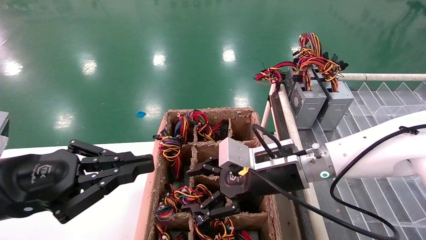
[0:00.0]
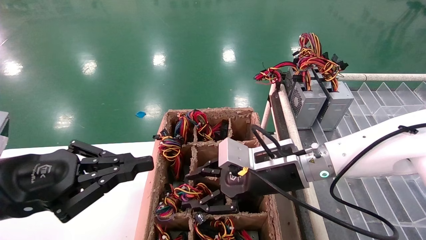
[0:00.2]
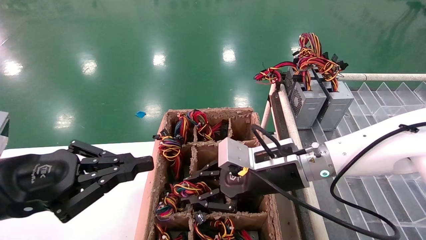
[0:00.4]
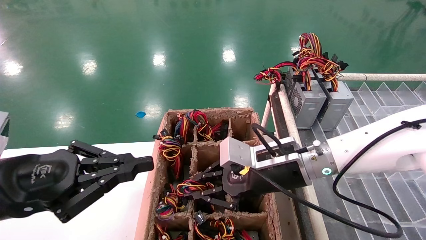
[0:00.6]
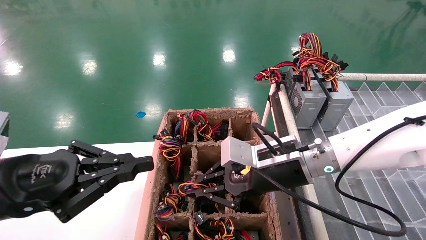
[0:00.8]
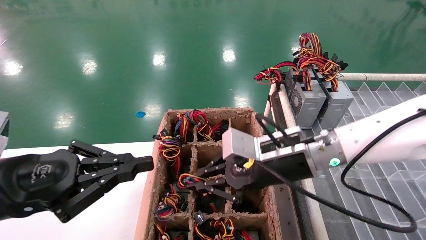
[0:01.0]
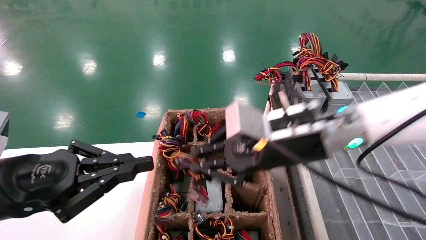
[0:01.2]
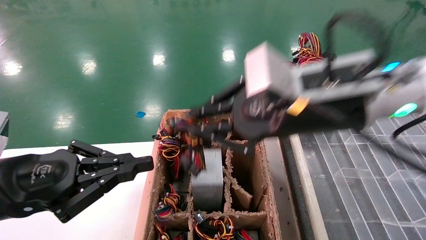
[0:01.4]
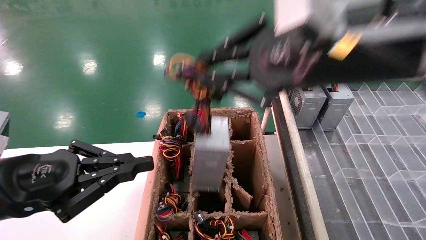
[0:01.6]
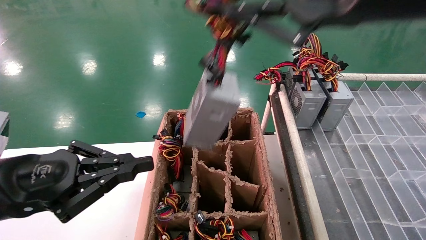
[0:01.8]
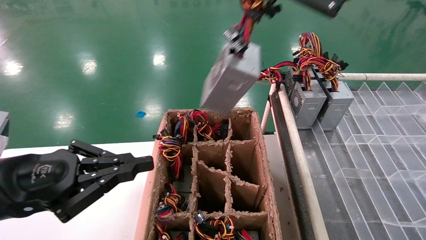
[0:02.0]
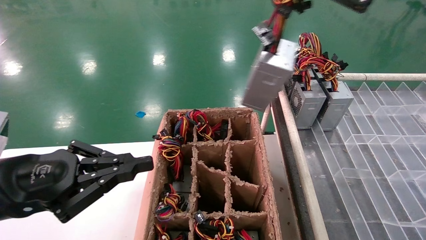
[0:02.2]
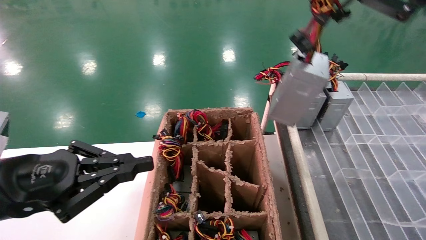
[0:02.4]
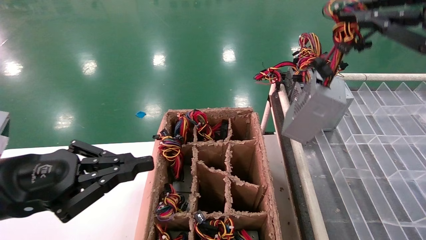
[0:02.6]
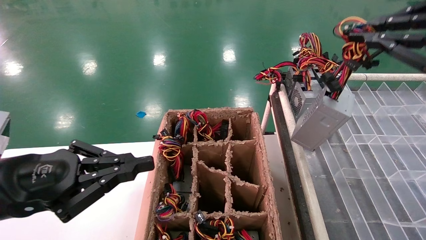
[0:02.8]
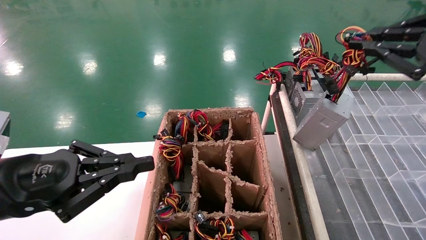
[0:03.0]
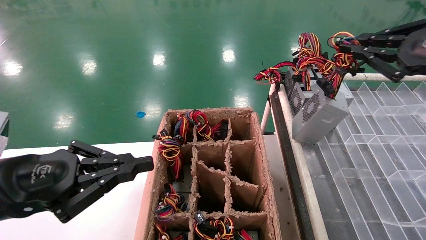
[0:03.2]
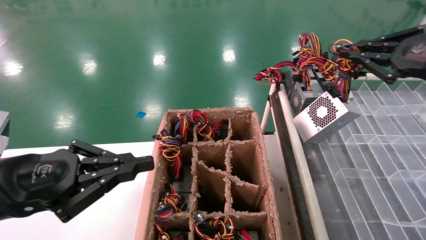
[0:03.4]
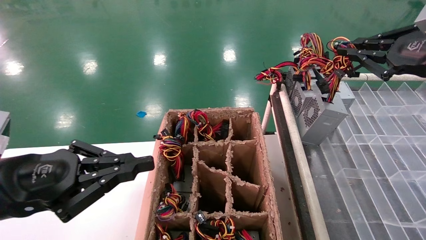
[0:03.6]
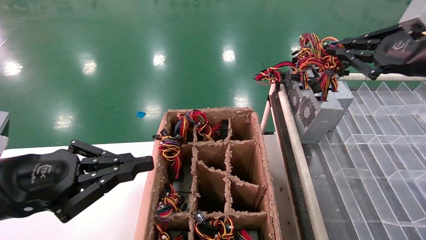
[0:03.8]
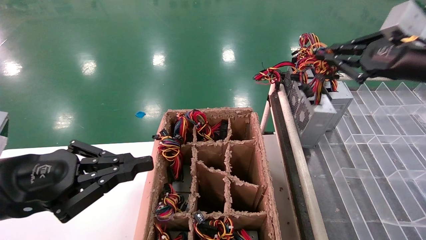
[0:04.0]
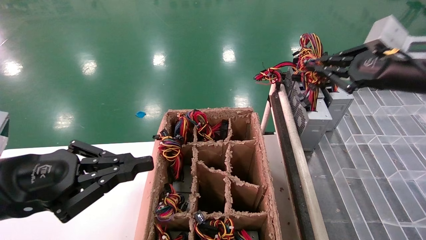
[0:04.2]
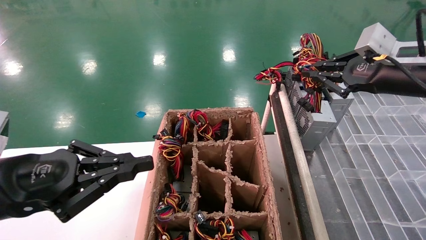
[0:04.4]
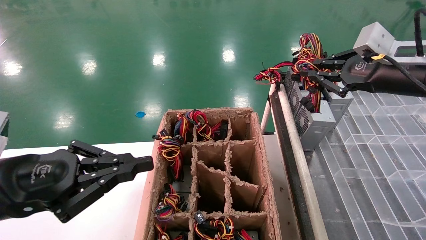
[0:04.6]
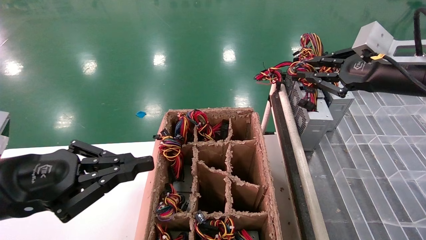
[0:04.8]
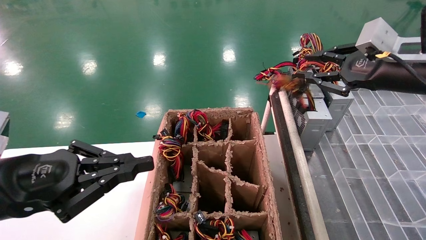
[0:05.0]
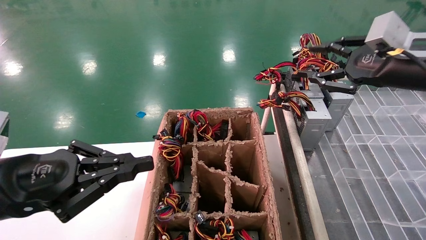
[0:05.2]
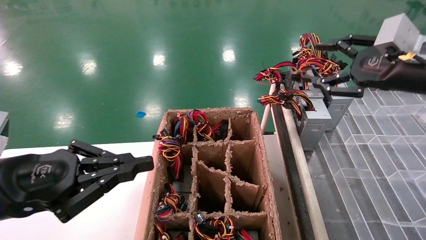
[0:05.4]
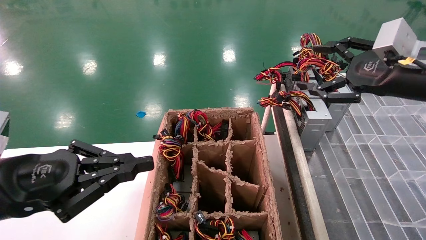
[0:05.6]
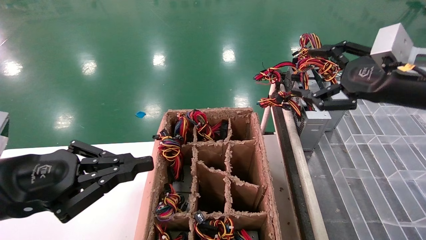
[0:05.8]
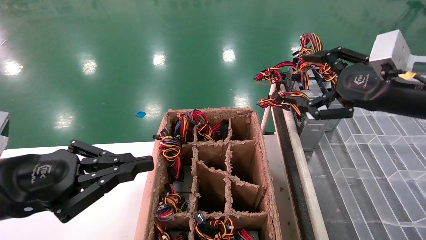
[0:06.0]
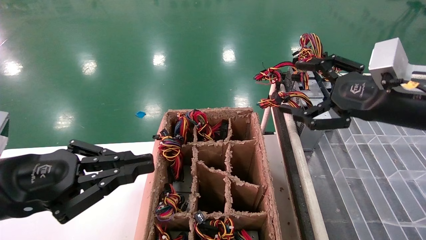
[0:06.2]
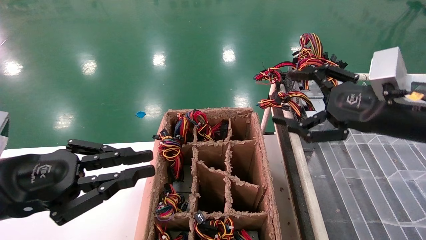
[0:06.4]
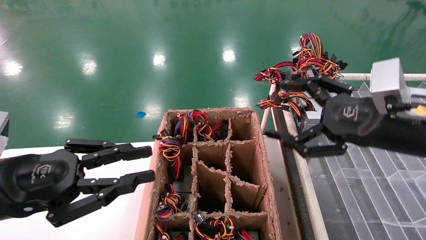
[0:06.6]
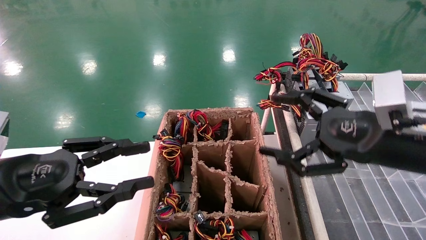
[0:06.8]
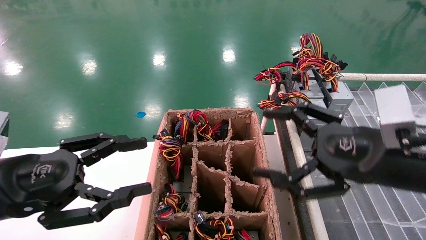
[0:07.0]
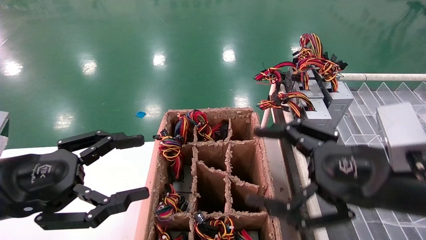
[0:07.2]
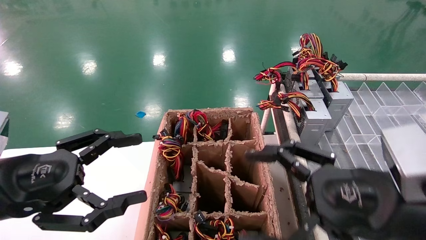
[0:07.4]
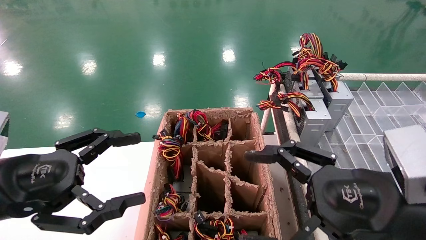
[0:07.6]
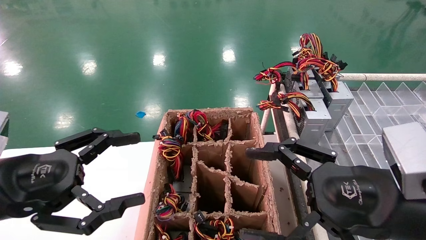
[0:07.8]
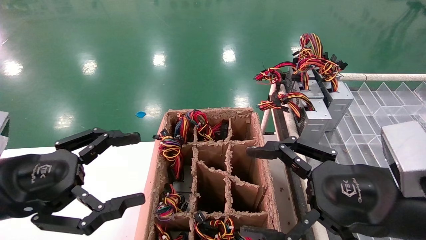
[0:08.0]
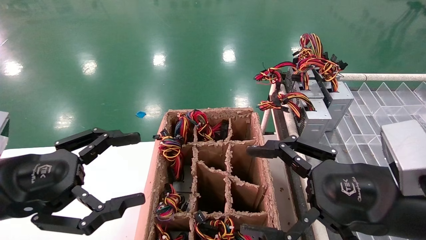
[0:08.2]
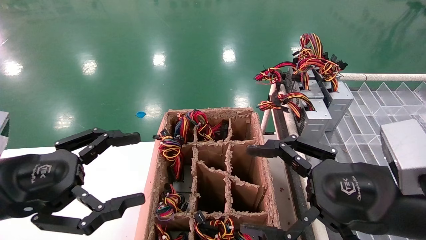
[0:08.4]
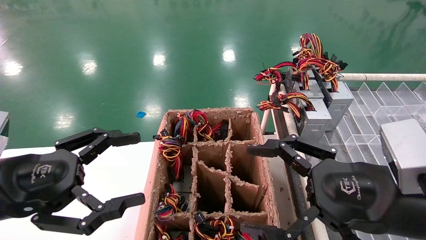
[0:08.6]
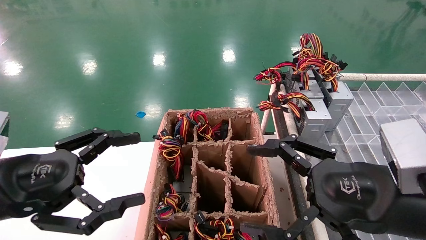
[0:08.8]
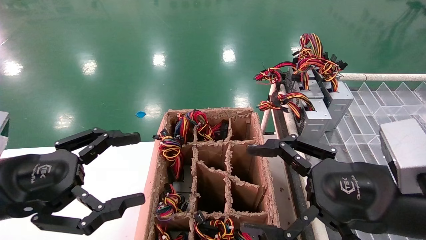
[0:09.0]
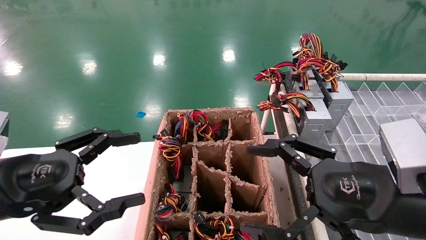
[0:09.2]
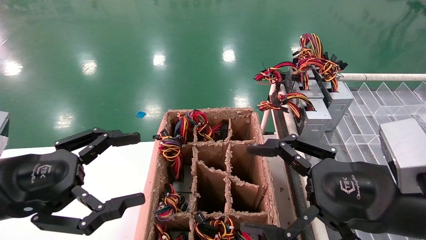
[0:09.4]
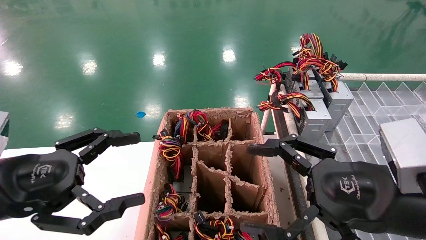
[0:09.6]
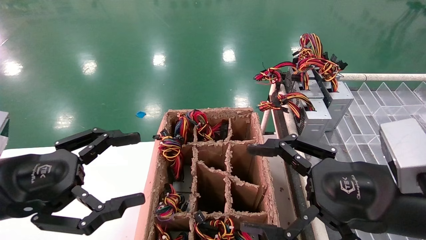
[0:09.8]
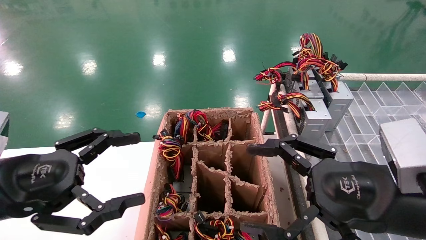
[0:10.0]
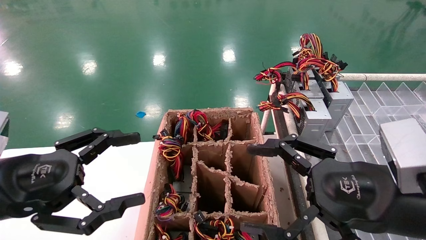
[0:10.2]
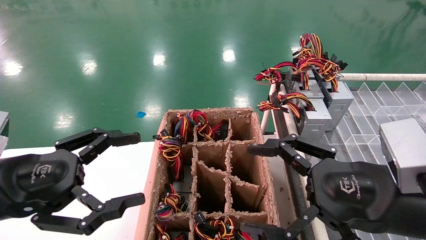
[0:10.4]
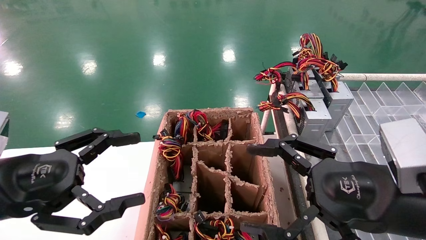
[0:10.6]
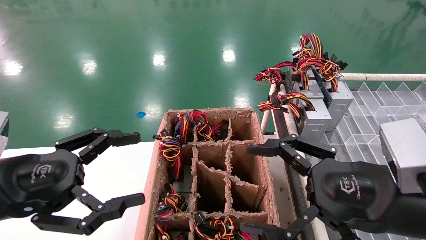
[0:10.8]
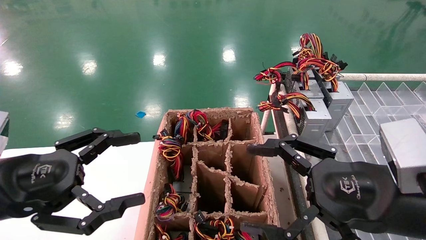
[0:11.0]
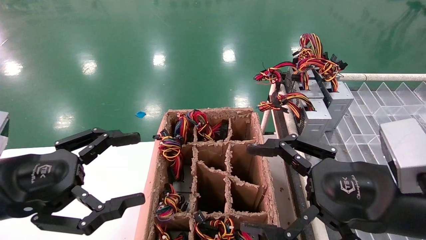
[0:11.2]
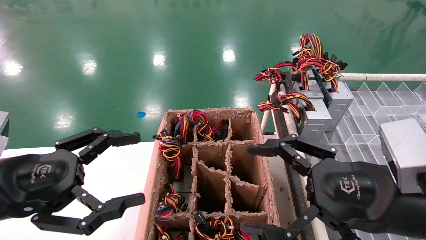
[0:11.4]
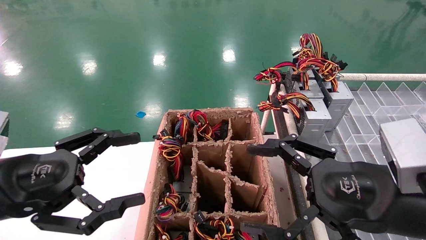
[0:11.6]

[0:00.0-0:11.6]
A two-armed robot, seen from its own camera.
Step, 0:01.0 to 0:05.2: Place the main unit power supply in the designated area.
0:00.0 to 0:01.4: The right gripper goes roughly 15 cm upward and backward, and closes.
0:01.4 to 0:02.8: The right gripper goes about 20 cm to the right.
0:02.8 to 0:04.4: The right gripper is displaced forward and downward by approximately 15 cm.
0:04.4 to 0:05.8: The right gripper opens up.
0:05.8 to 0:07.2: The right gripper travels backward, downward and to the left by some 15 cm, while the left gripper opens up.
0:07.2 to 0:08.8: The grippers move only a little.
0:08.8 to 0:11.6: The two grippers keep their place.
